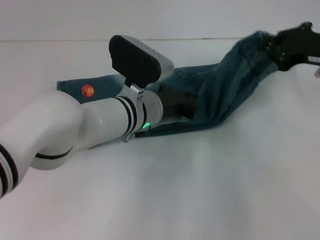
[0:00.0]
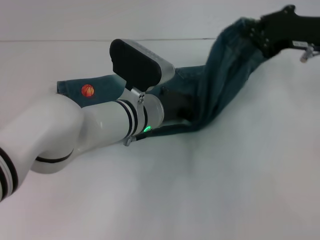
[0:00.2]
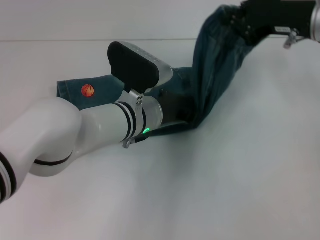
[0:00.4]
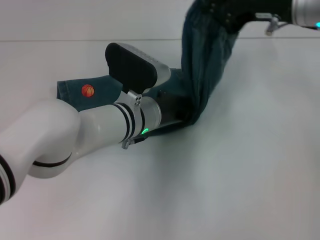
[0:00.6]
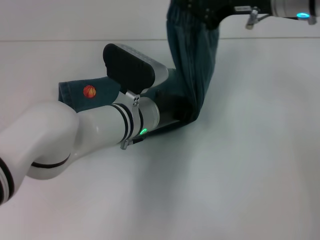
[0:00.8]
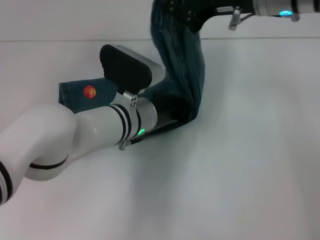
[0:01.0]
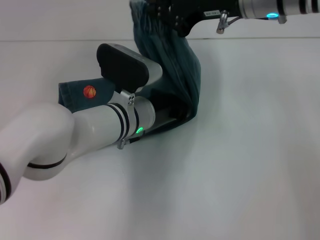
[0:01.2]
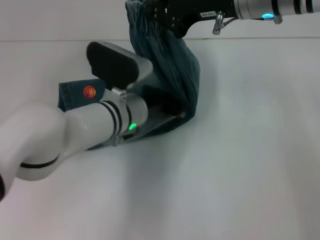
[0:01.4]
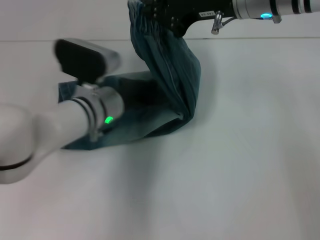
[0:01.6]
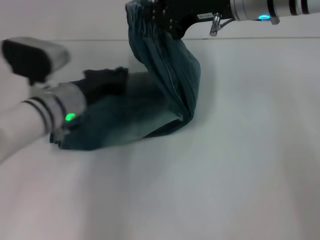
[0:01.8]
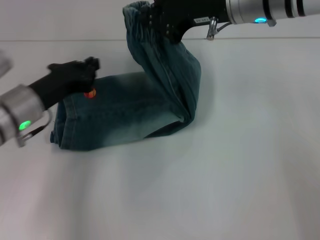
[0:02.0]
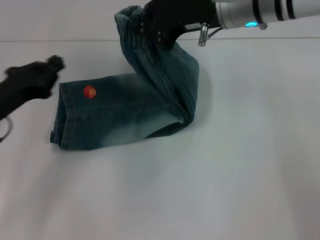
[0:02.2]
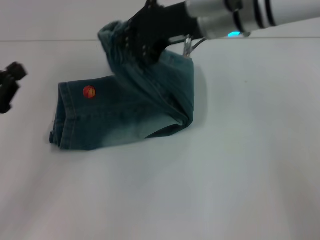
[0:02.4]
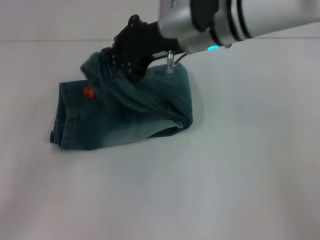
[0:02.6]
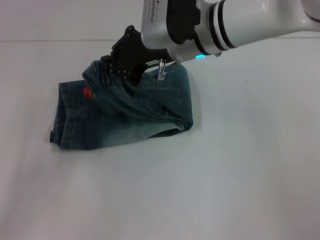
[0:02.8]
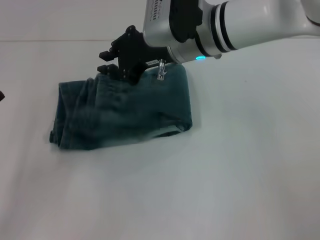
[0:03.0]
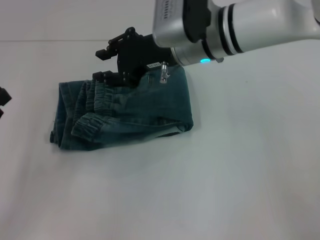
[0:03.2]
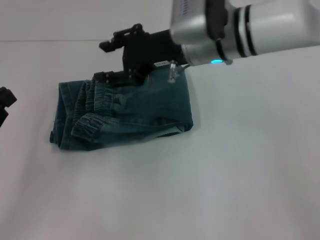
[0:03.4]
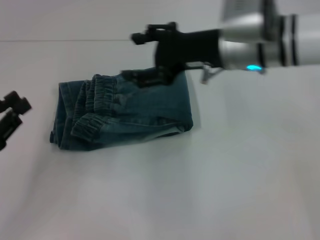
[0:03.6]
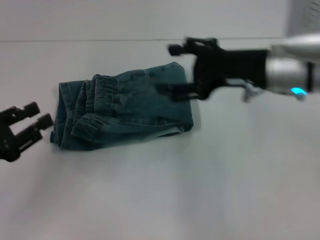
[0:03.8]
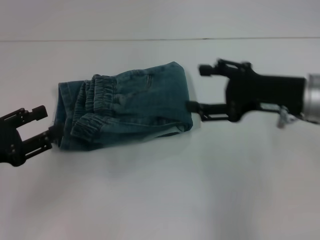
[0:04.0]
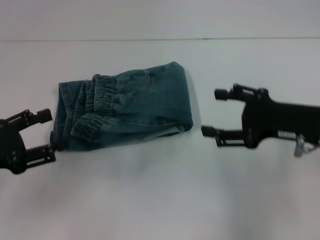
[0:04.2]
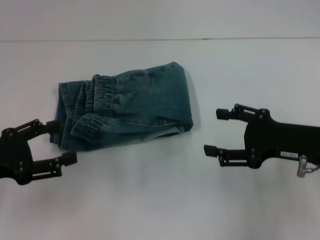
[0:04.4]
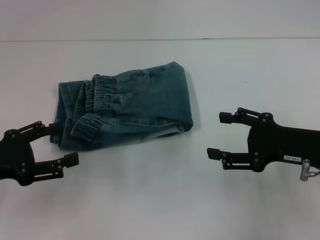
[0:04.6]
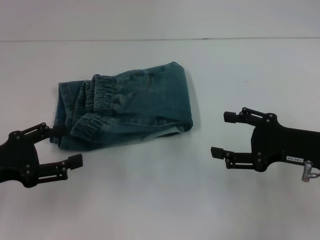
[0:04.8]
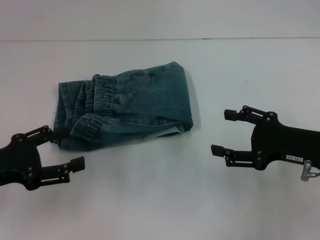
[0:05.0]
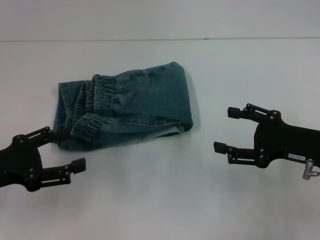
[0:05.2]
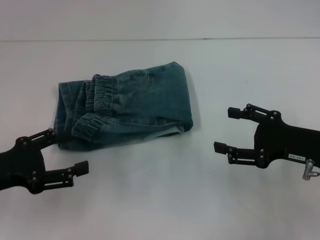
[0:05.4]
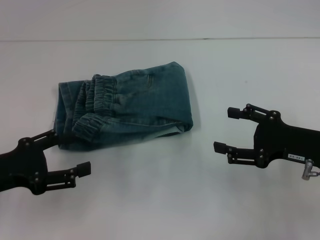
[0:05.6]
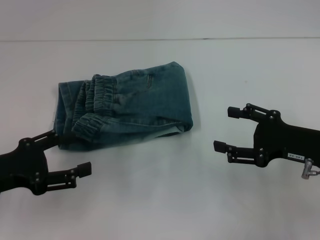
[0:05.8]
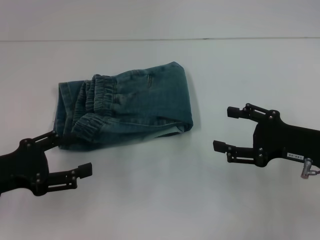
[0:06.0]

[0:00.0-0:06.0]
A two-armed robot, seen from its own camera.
Step, 0:00.0 to 0:01.6: Press the middle of the pants with your left hand.
Step, 0:01.8 to 0:03.2: Fold to the left with your right hand.
0:00.0 to 0:01.6: The right gripper moves to the left and upward, some 15 cm, while the left gripper moves to the left, approximately 5 cm.
0:01.6 to 0:03.0: The right gripper is displaced to the left by approximately 10 cm; the left gripper moves to the left and backward, about 30 cm.
0:03.0 to 0:04.4: The left gripper opens up; the right gripper goes roughly 25 cm to the right, backward and downward, and opens up.
0:04.4 to 0:06.0: The grippers stay close to where they were, moving slightly.
